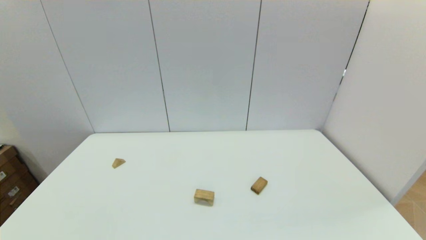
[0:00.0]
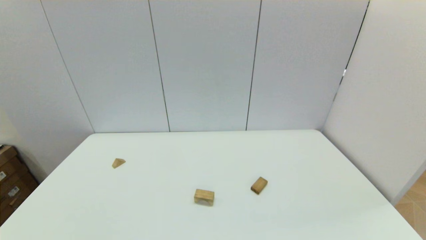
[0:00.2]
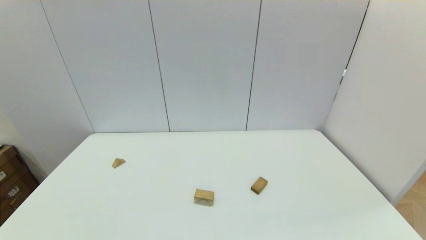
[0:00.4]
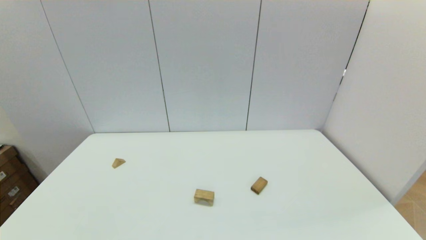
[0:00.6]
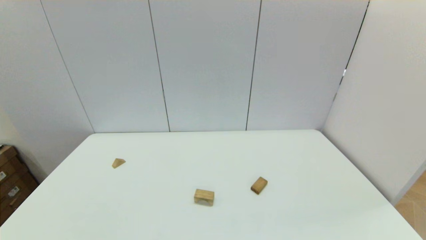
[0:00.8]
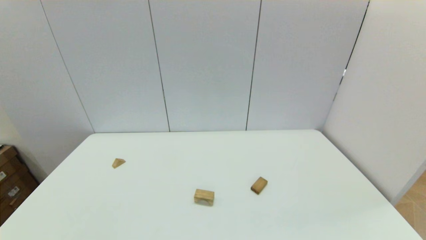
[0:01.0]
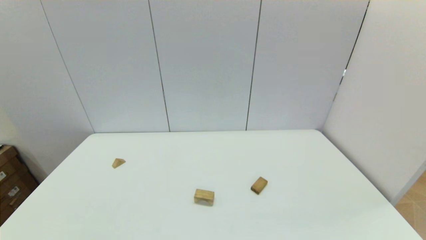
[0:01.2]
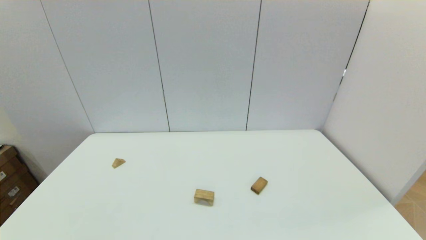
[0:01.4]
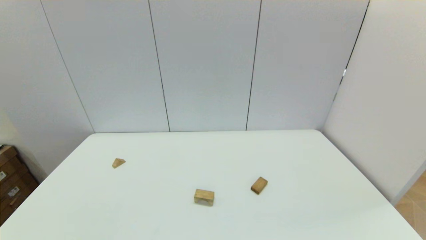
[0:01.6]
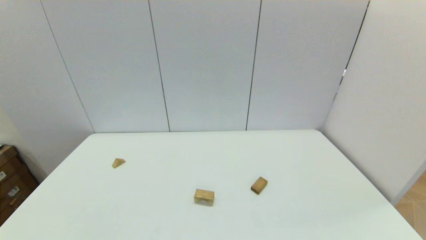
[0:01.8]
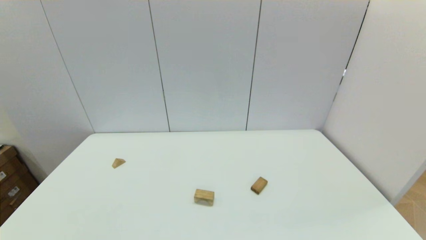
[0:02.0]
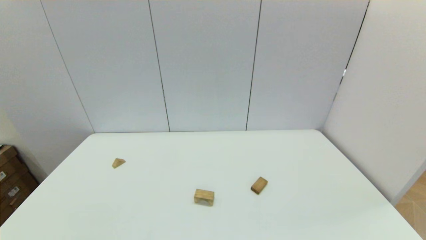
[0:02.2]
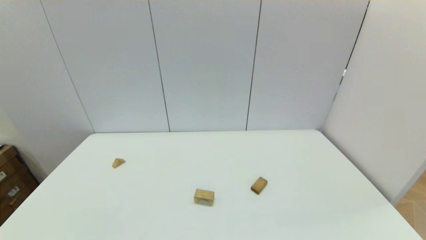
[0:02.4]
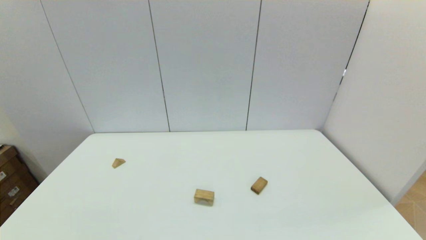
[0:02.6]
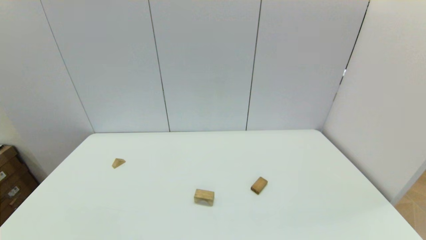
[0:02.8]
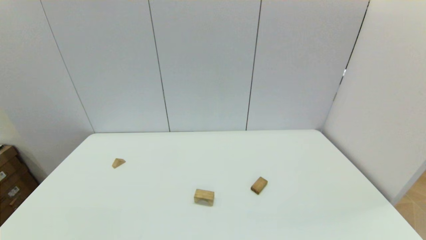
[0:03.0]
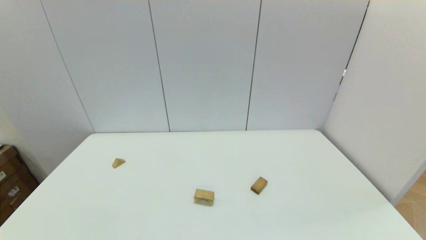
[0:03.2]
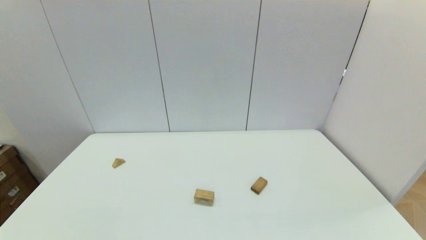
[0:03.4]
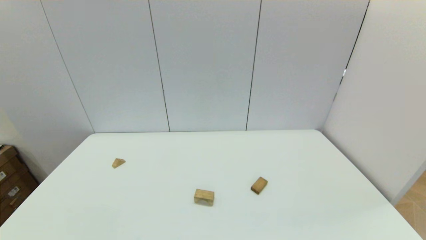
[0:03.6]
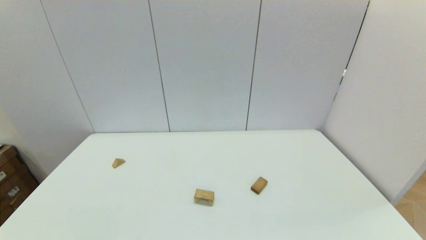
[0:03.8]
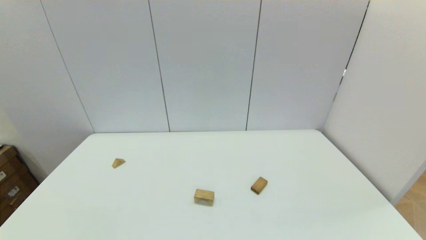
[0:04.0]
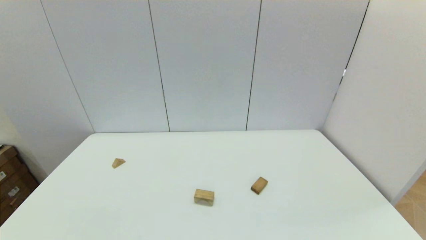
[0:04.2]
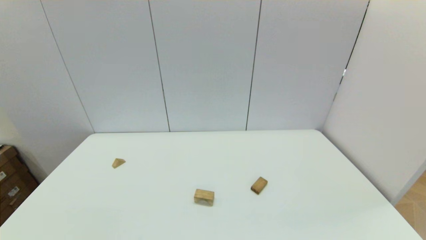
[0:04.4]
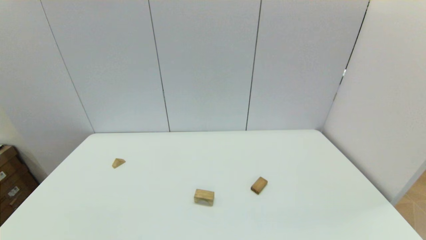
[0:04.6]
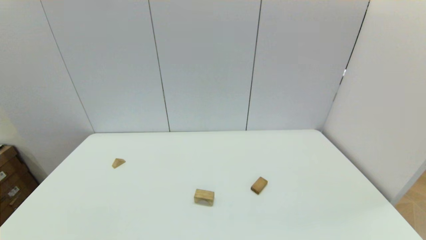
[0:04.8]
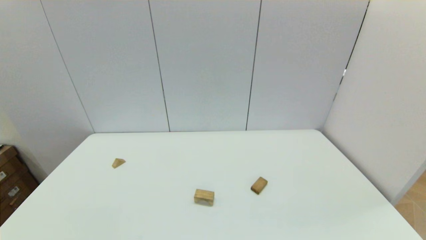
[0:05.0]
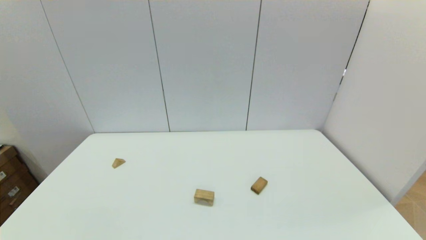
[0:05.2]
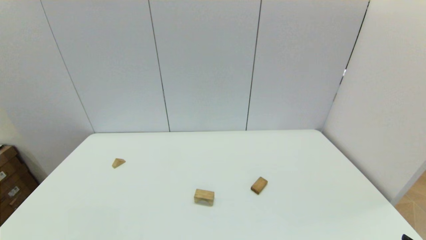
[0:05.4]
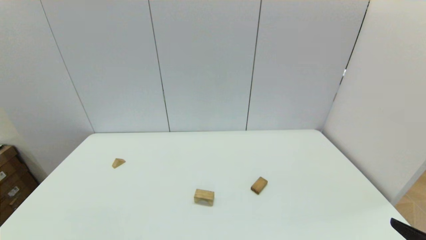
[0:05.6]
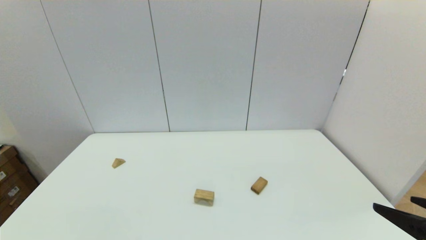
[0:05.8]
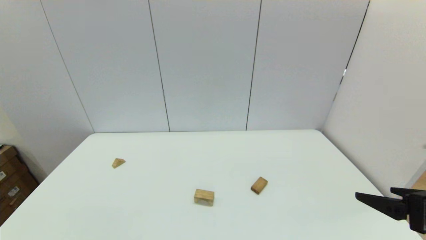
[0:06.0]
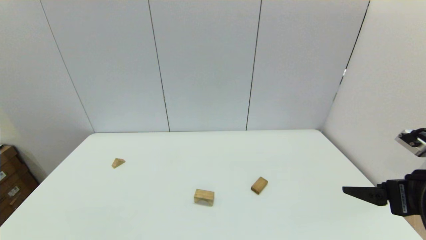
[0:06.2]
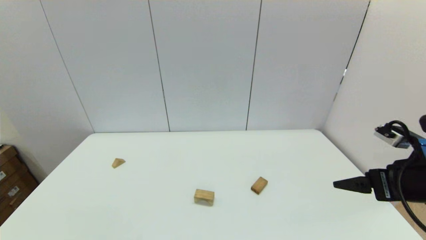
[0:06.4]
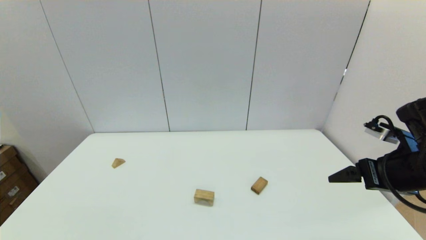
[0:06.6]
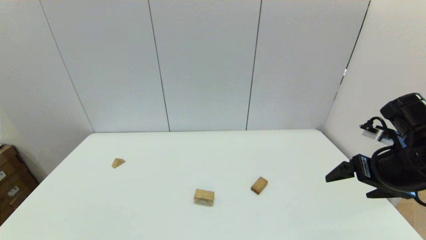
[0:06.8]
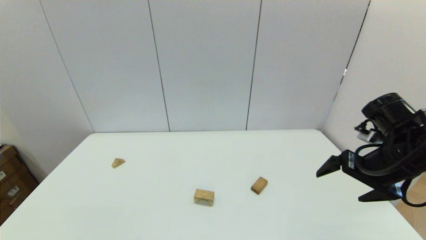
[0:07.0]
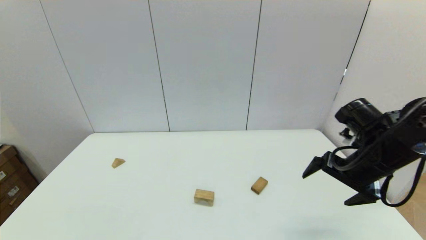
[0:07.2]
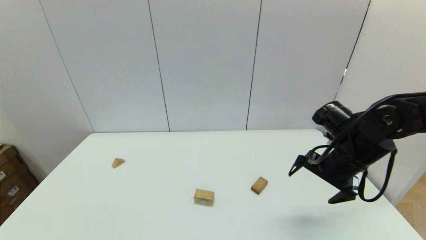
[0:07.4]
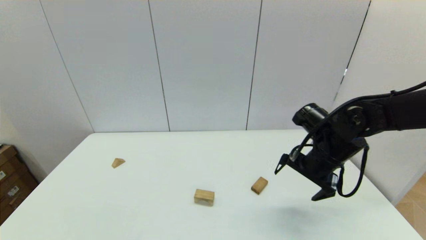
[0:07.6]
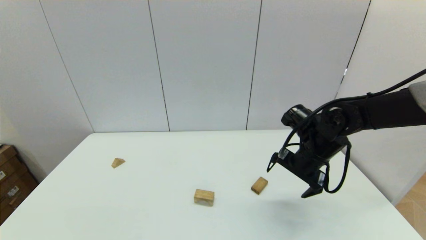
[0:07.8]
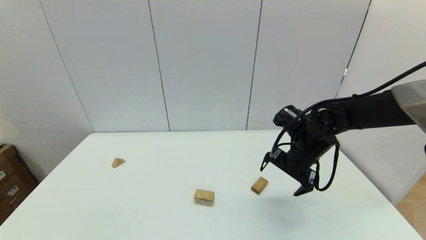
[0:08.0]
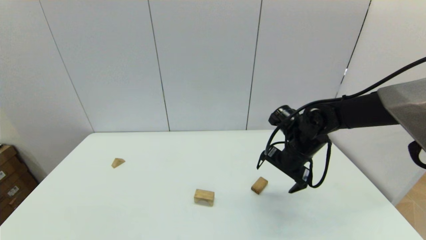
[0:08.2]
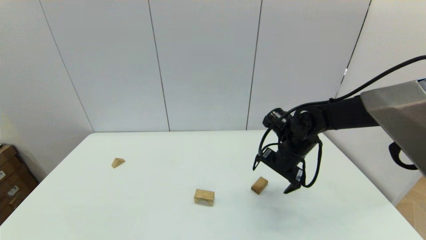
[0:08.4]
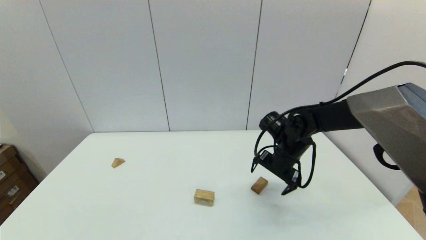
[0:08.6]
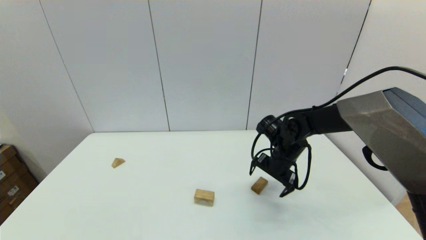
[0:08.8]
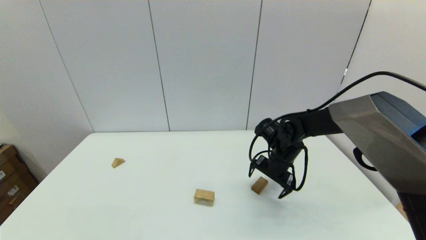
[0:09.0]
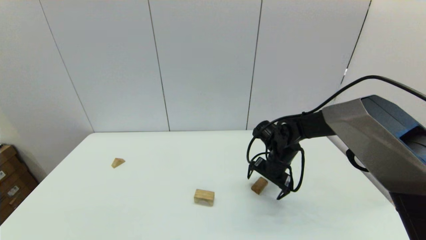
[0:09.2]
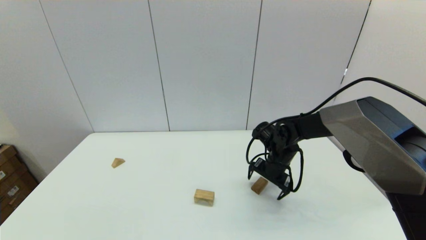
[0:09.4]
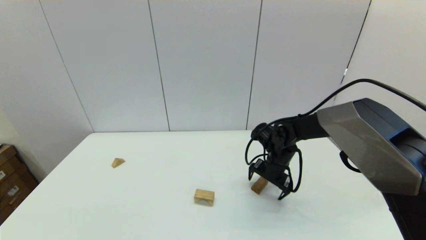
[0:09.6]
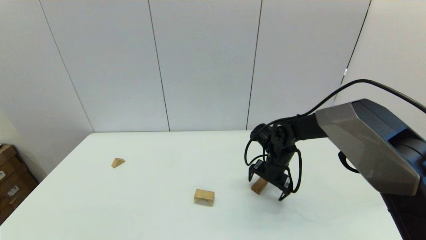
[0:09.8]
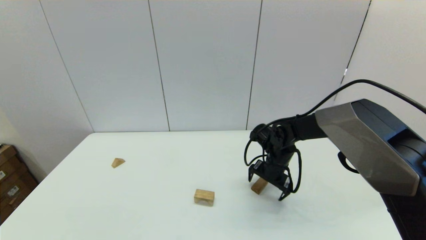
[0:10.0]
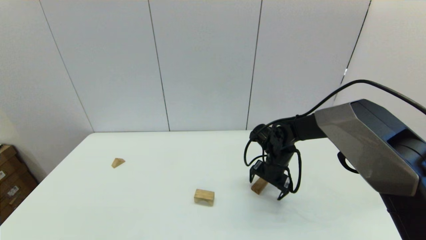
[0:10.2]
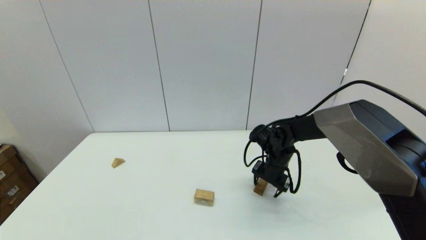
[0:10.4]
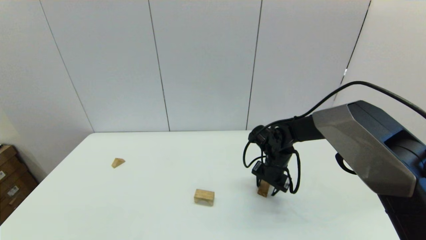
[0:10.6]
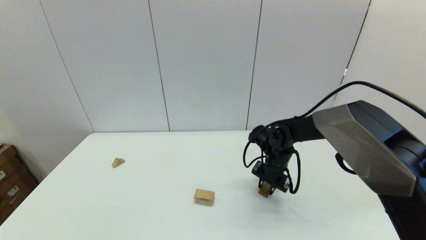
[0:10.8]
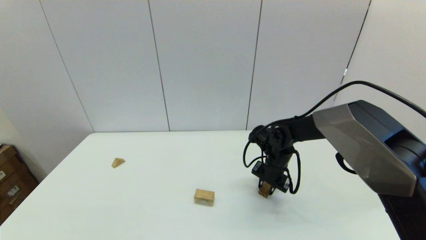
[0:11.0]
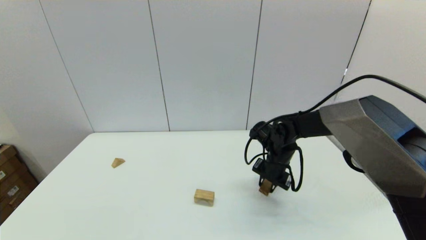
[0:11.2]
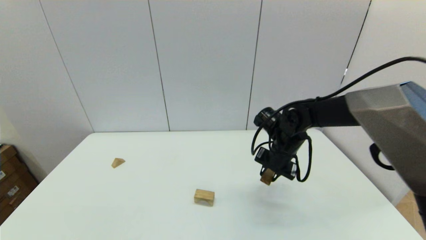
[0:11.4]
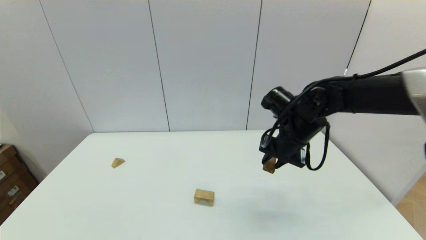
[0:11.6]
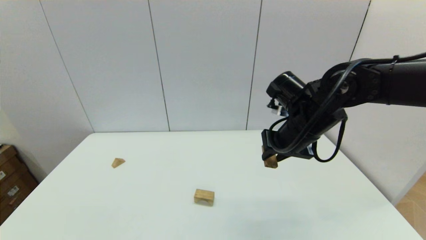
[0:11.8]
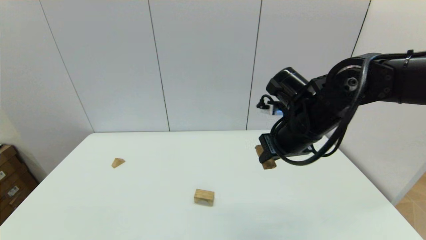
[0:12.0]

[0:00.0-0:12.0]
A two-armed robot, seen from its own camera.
Task of the whole recording: place the arched building blocks in the center of the table, set up the rectangular building blocks, and then set up the triangular building blocks.
Step, 0:00.0 to 0:10.6: Grasp the box-shaped block with the right gripper.
0:03.0 to 0:04.4: Both grippers stay put.
0:04.4 to 0:06.0: The right gripper travels forward and upward by some 20 cm.
0:06.0 to 0:07.6: The right gripper heads forward and to the left, covering about 20 cm.
0:07.6 to 0:09.0: The right gripper moves downward, forward and to the left, some 10 cm.
0:09.0 to 0:10.4: The right gripper closes its fingers.
0:10.4 to 0:12.0: The right gripper is displaced upward and backward by about 20 cm, and closes up.

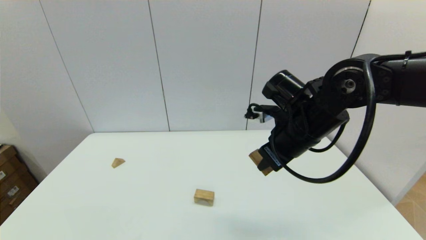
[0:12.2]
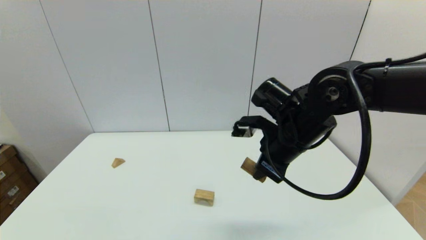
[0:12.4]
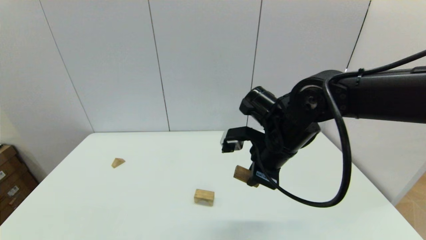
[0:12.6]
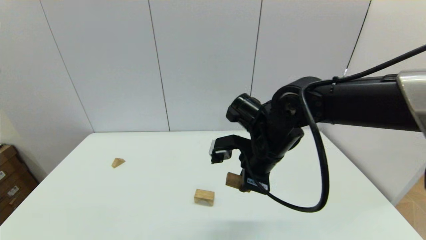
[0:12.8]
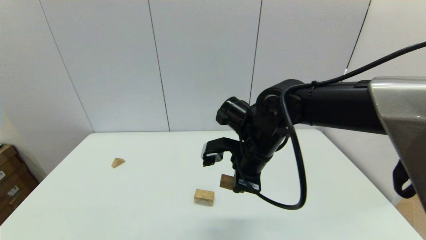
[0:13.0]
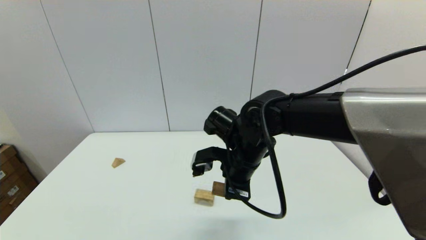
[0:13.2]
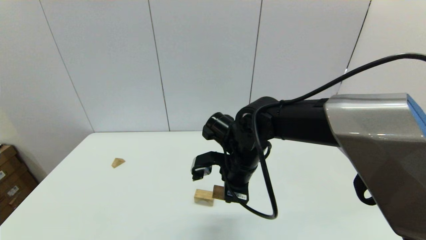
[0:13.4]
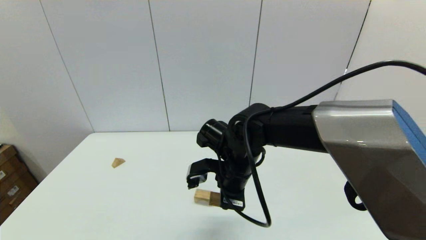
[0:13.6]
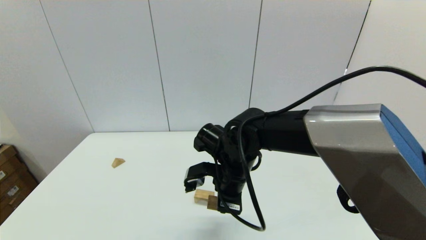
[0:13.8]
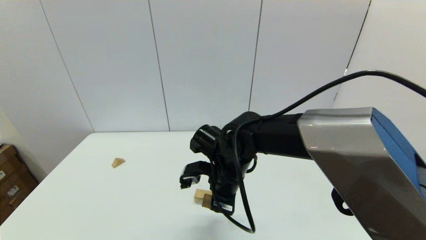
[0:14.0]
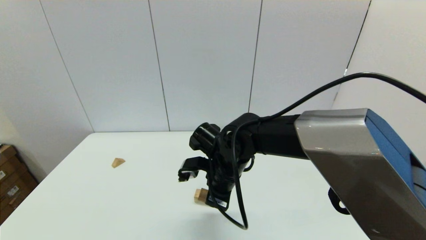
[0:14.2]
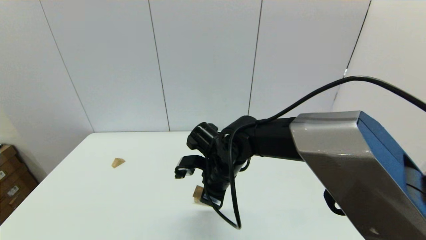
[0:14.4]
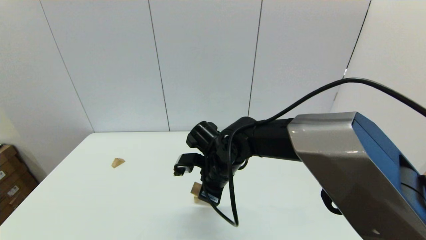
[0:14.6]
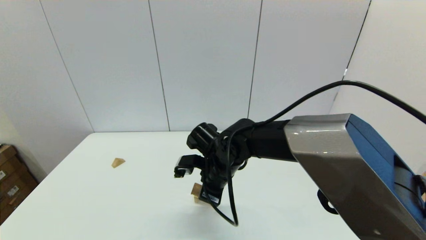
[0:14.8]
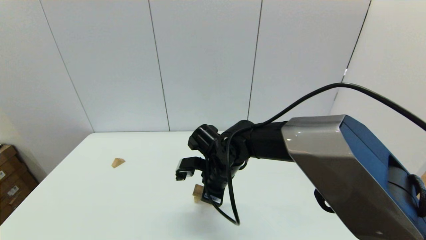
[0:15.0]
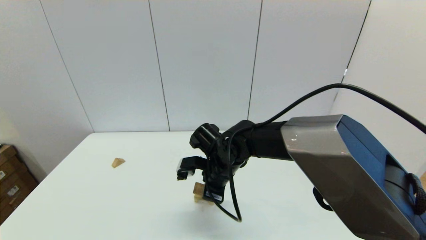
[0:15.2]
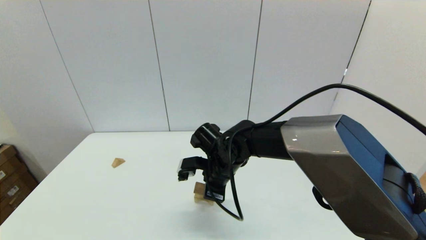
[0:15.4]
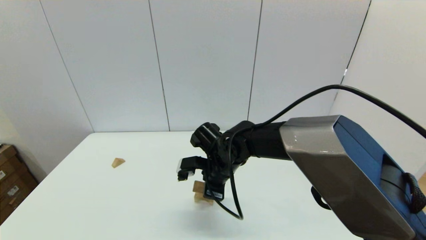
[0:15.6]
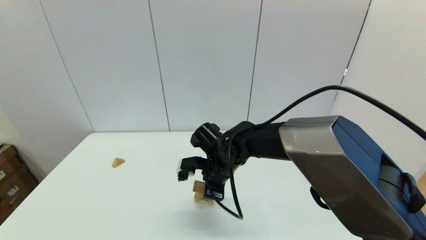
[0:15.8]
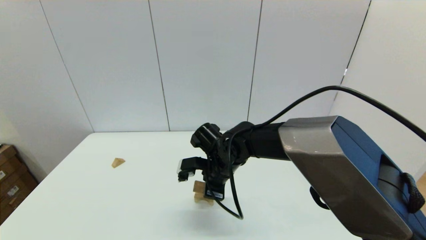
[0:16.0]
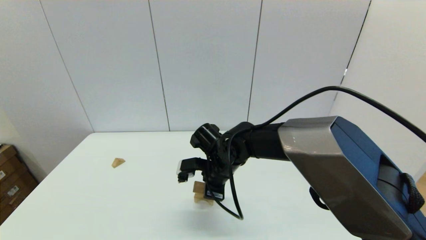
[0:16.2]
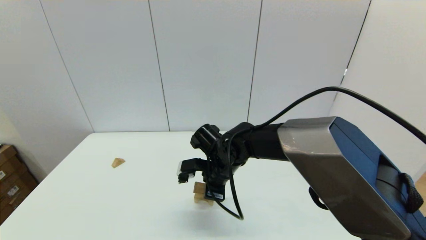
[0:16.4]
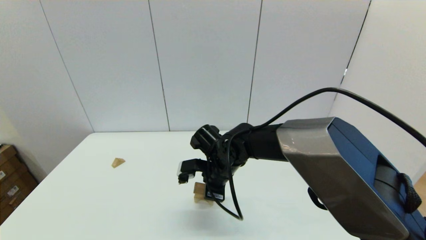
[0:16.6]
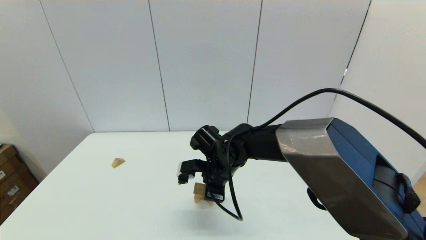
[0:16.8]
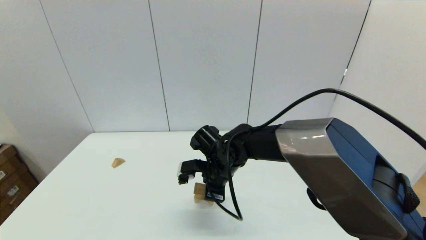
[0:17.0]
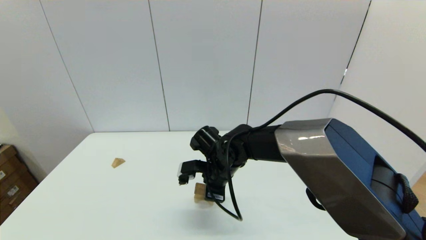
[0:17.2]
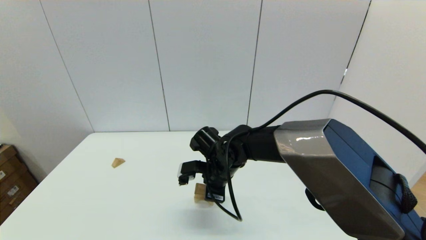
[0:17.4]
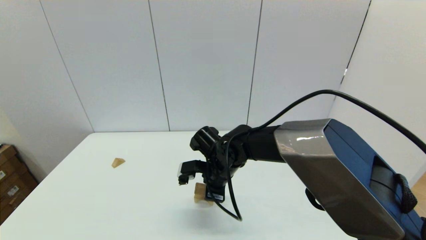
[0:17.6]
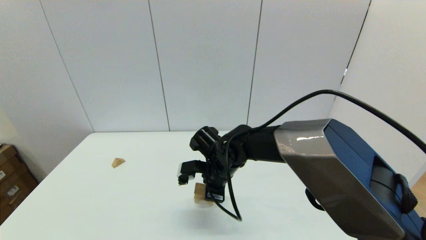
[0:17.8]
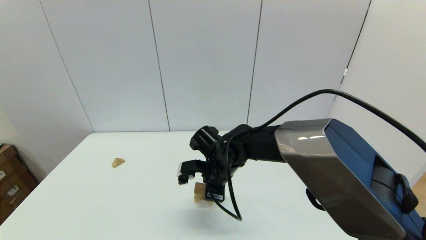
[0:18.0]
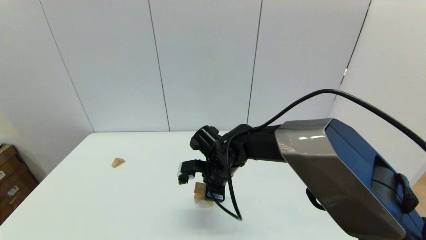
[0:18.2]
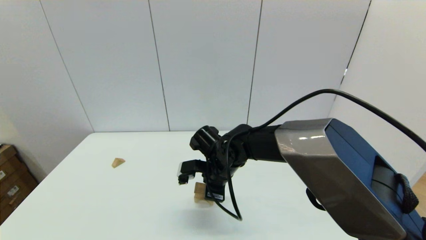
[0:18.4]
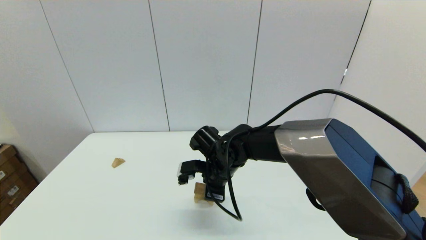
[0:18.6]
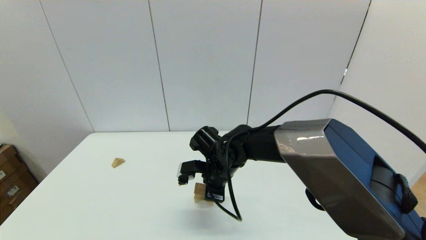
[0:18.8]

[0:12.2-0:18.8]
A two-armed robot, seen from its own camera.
Task of the whole recording: place the arched building blocks in the center of the table, set up the rectangular building blocks, and then set up the triangular building blocks.
0:12.2 to 0:13.8: The right gripper moves to the left and downward, some 15 cm.
0:13.8 to 0:15.4: The right gripper ends up roughly 5 cm from where it was.
0:15.4 to 0:17.2: Both grippers stay about where they are.
0:17.2 to 0:18.8: Neither gripper changes place.
